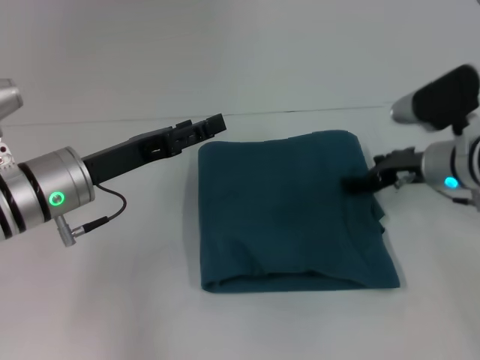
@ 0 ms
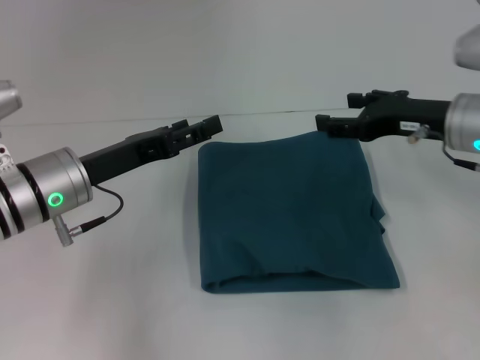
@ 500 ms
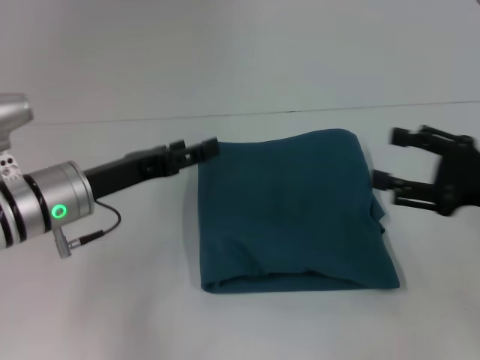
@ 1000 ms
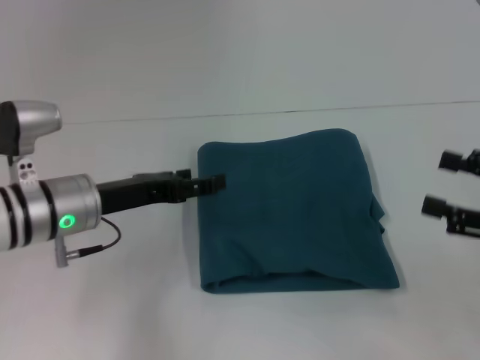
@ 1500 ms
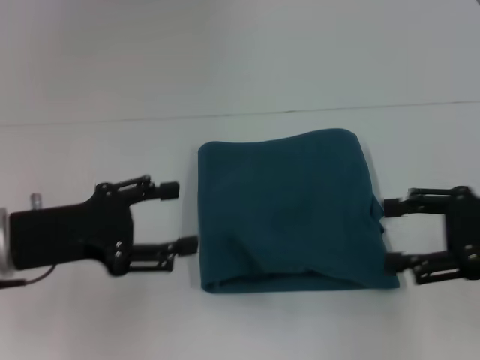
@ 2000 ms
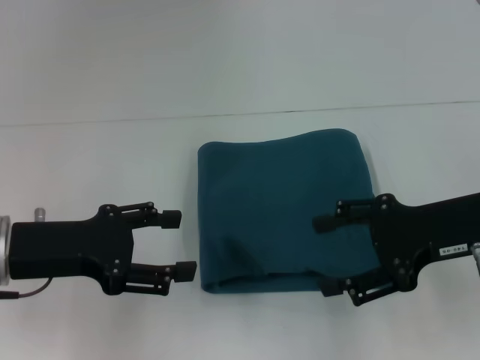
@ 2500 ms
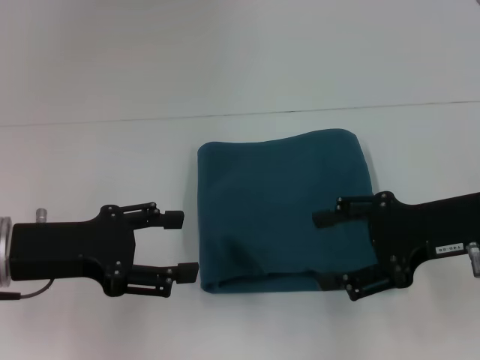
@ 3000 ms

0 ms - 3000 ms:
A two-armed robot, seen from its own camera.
0 ms - 1500 ms: The right gripper is displaced backward and to the right by about 20 cm.
1500 ms - 3000 ms: The left gripper moves backward and to the left, roughly 10 cm. Meanwhile the right gripper shifts roughly 10 cm to the left.

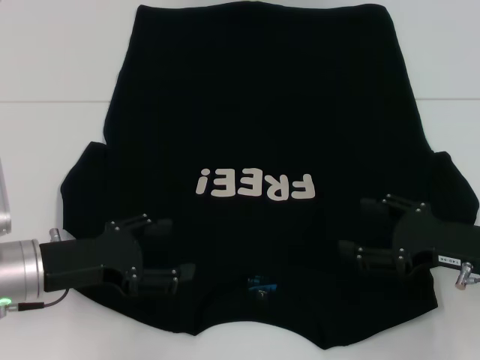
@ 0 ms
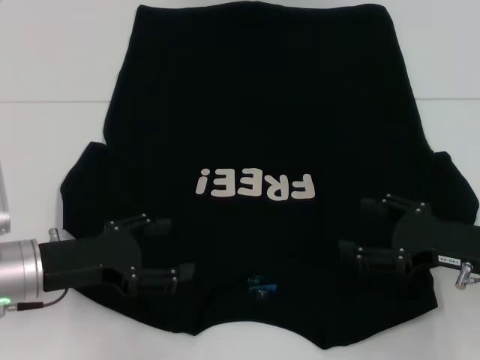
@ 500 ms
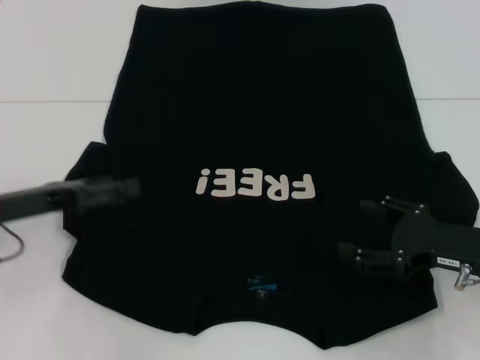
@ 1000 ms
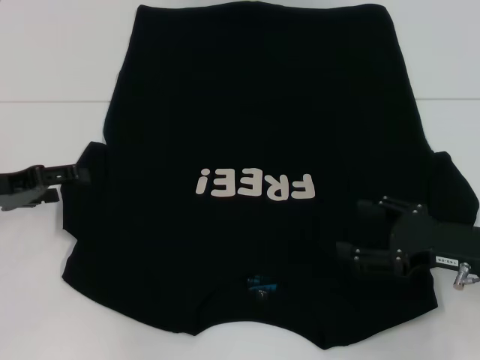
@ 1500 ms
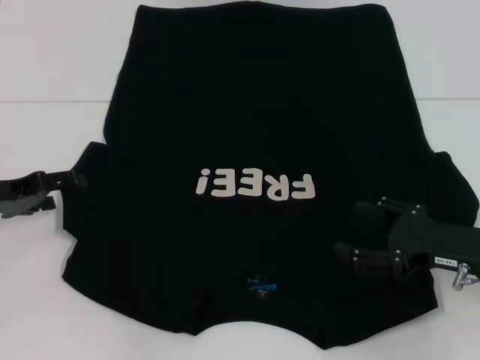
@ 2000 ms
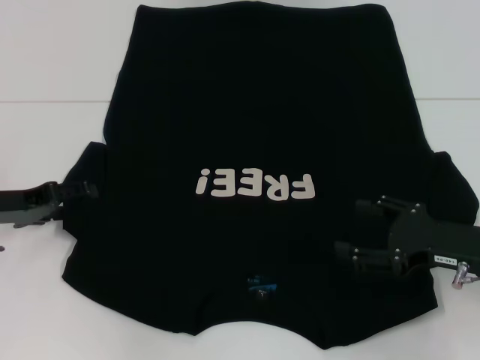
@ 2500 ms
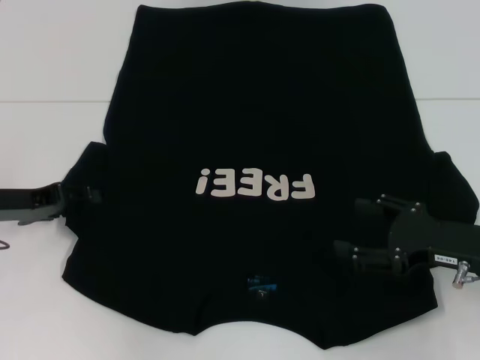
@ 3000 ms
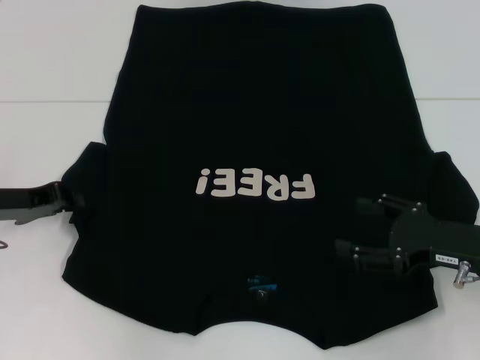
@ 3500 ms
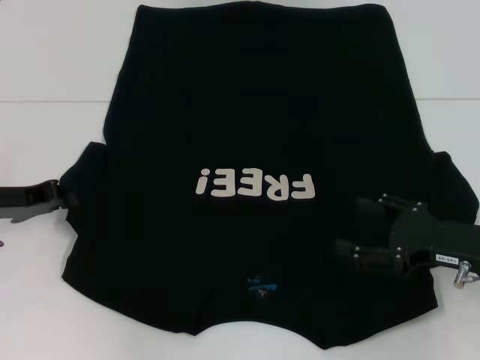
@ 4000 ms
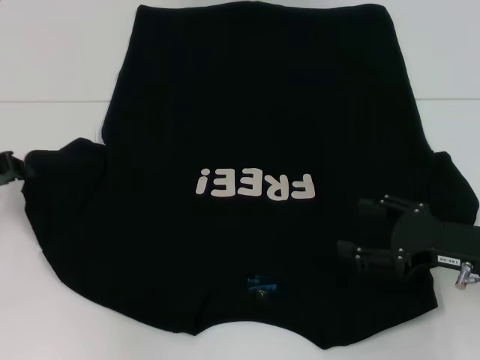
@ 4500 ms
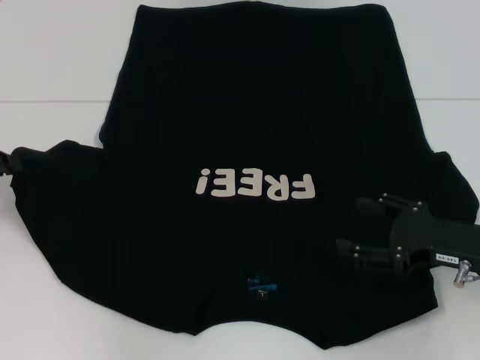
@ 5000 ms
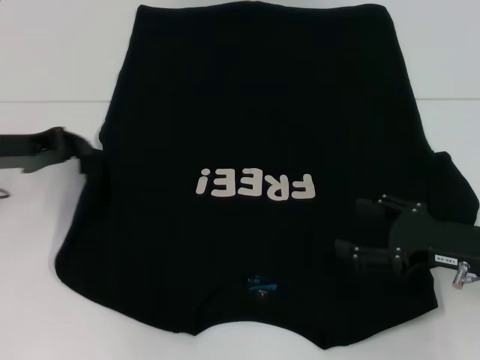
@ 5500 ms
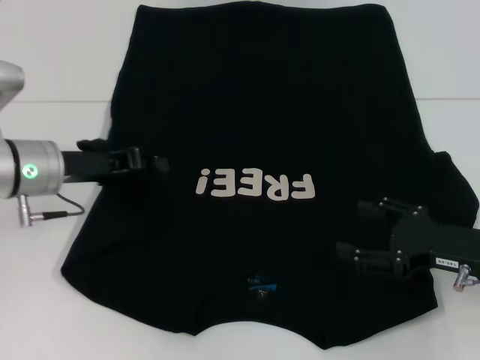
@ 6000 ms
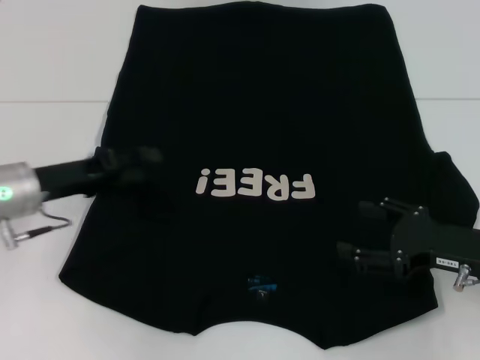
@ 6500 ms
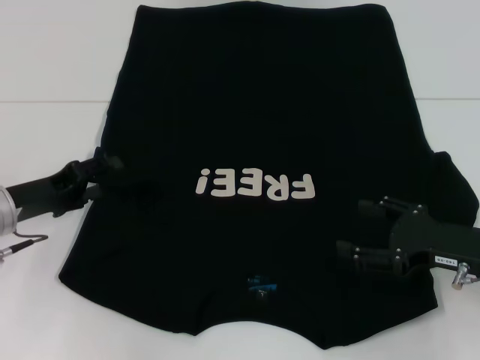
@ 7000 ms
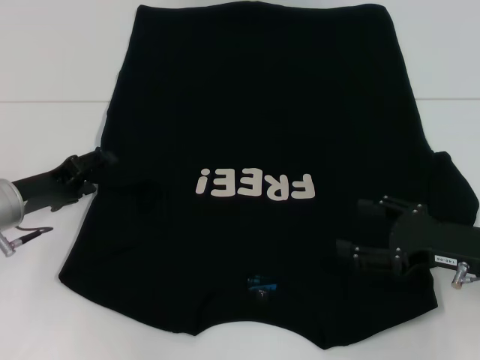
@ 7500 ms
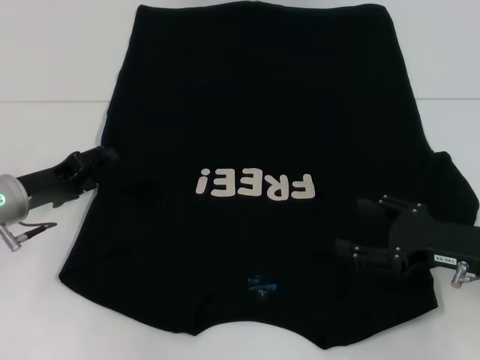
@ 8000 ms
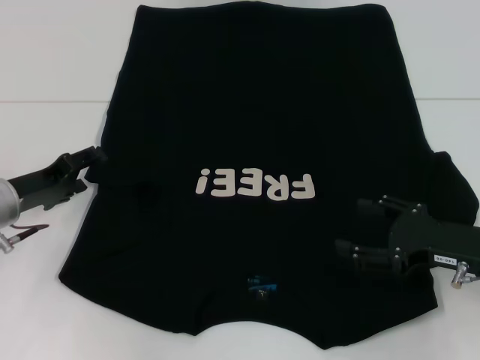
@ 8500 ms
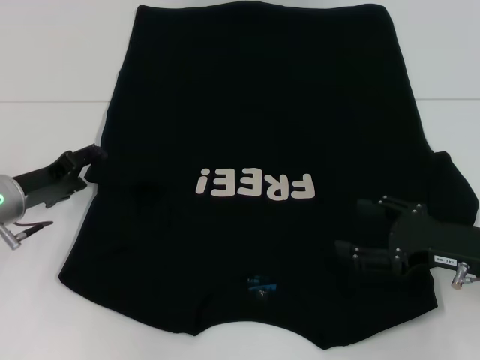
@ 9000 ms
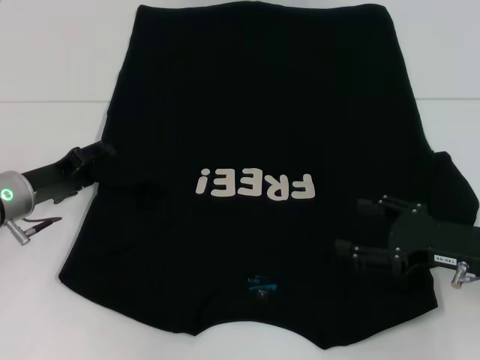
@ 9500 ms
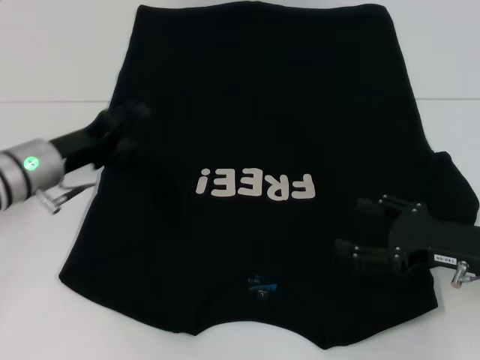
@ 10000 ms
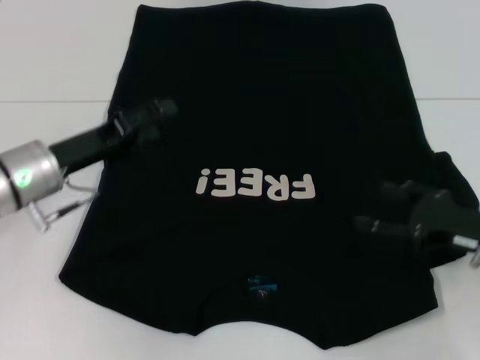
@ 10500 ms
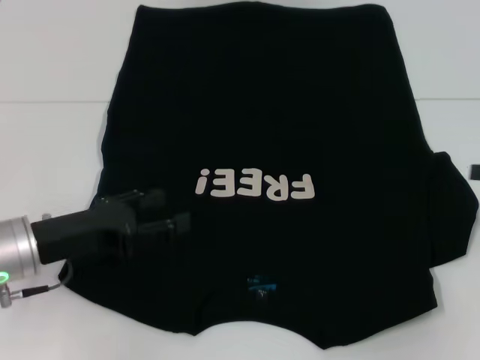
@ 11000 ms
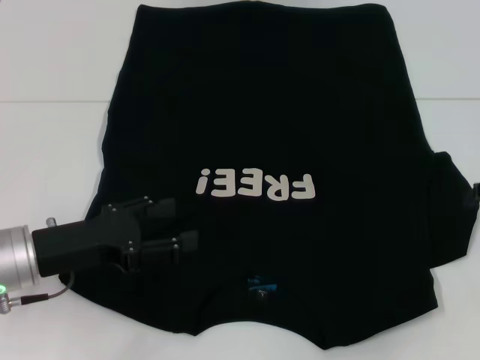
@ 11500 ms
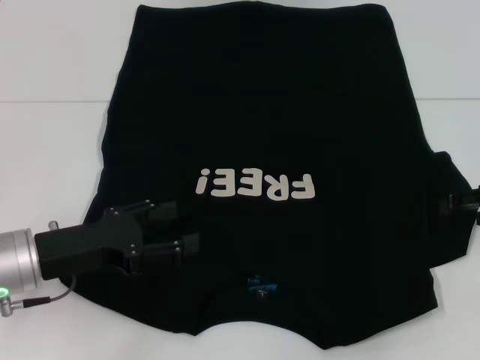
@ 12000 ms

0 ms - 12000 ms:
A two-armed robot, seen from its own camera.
Step, 0 ms - 6000 ms: Fold the bottom left sleeve with your left hand.
0 ms - 2000 ms: The left gripper heads to the left and forward, covering roughly 10 cm.
2000 ms - 4000 ms: The left gripper closes its fingers.
4000 ms - 6000 ms: The left gripper goes approximately 10 cm to the right.
6000 ms - 8000 ms: The left gripper goes some 5 cm downward, and opens up.
8000 ms - 10000 ms: The left gripper changes place by approximately 5 cm.
10000 ms - 12000 ms: The right gripper shifts approximately 10 cm to the right, forward and upward, while the left gripper is displaced backward by some 10 cm.

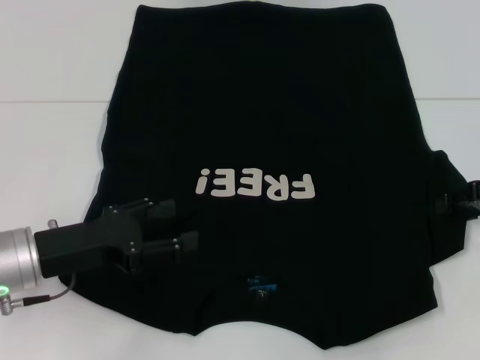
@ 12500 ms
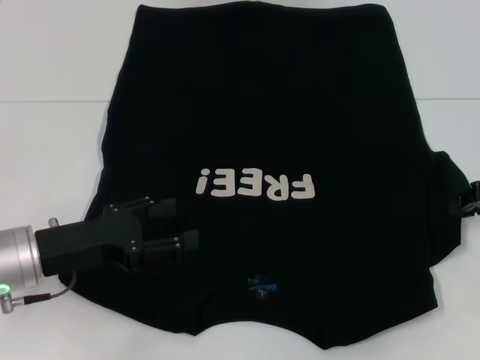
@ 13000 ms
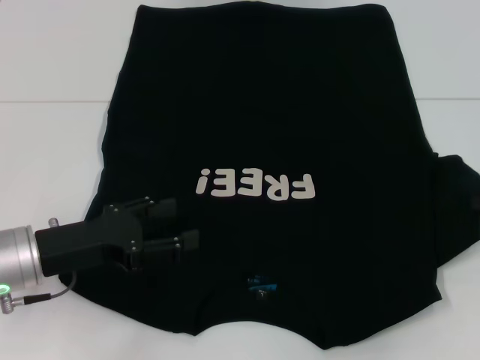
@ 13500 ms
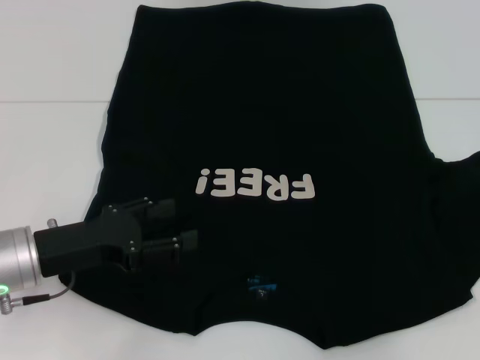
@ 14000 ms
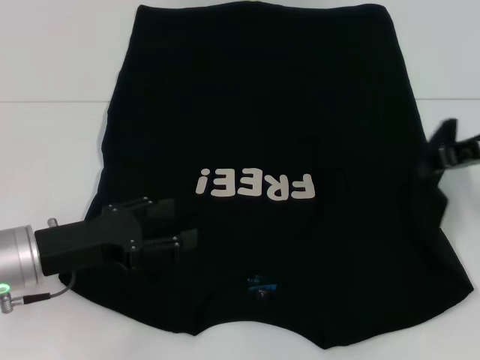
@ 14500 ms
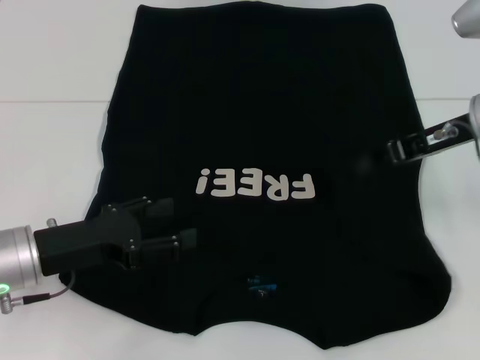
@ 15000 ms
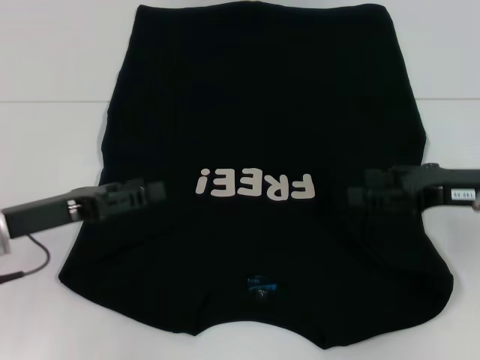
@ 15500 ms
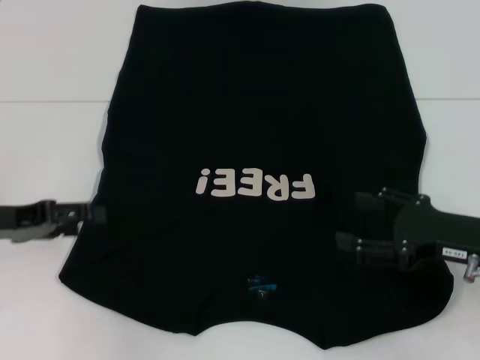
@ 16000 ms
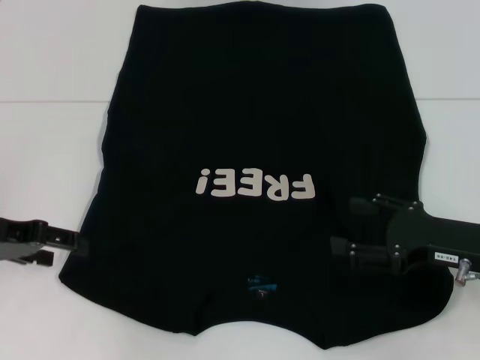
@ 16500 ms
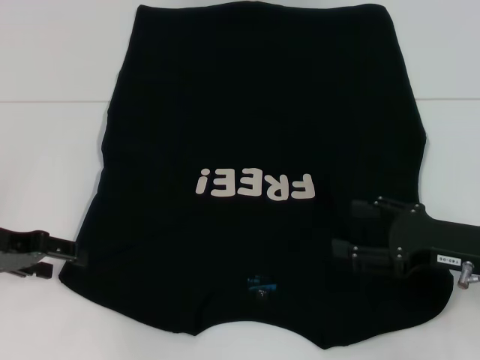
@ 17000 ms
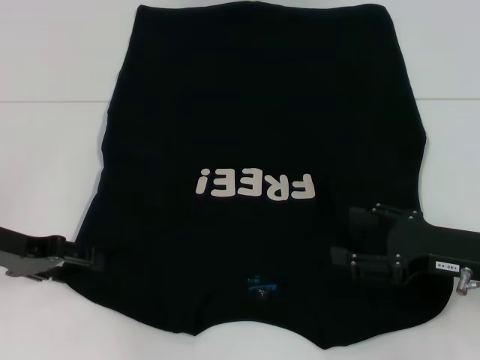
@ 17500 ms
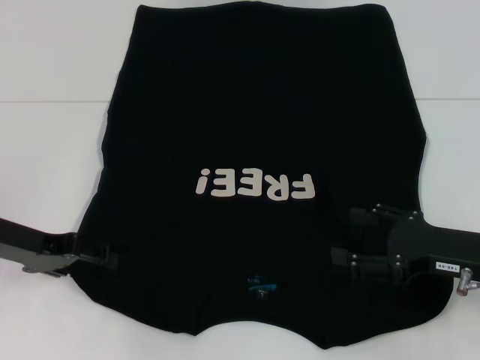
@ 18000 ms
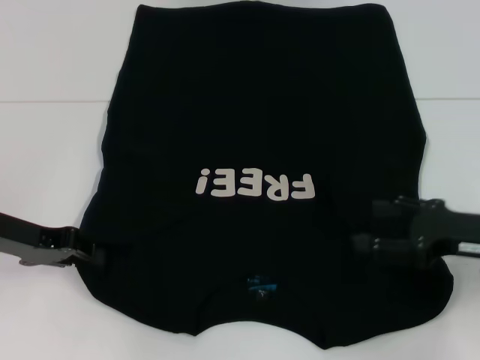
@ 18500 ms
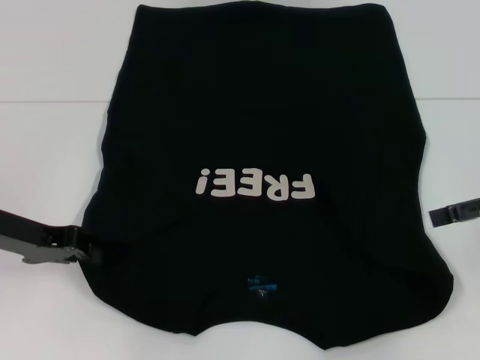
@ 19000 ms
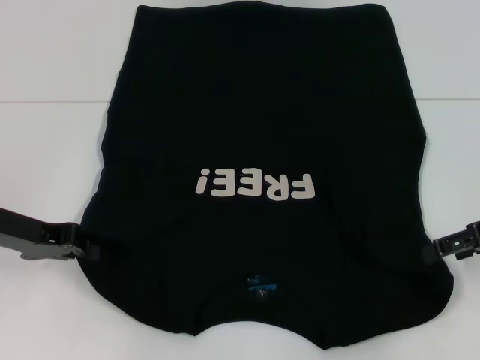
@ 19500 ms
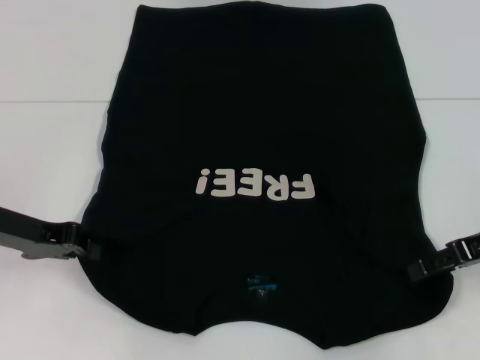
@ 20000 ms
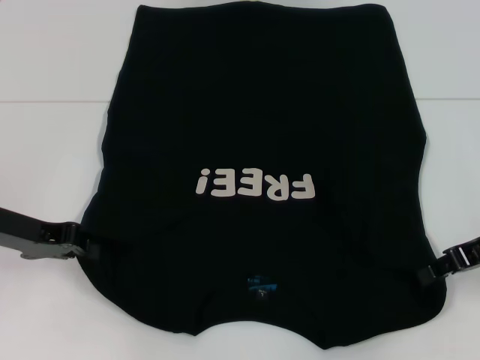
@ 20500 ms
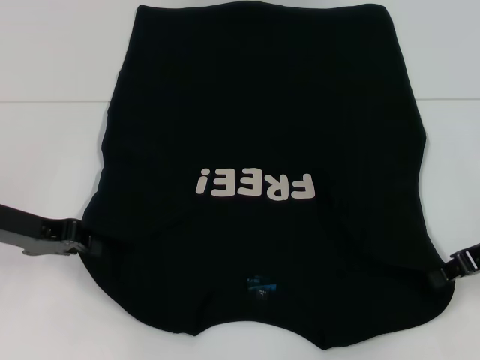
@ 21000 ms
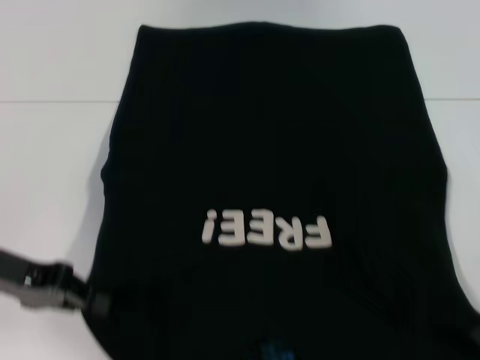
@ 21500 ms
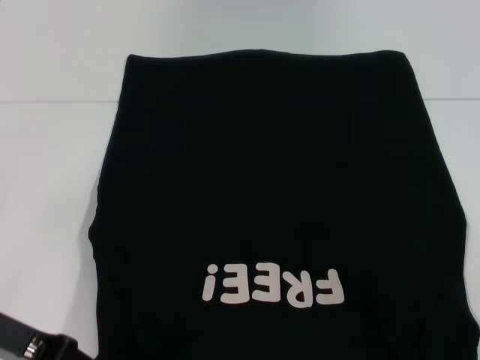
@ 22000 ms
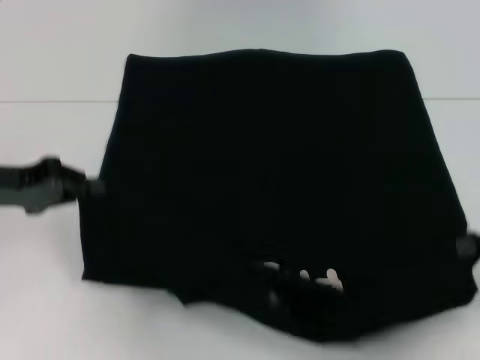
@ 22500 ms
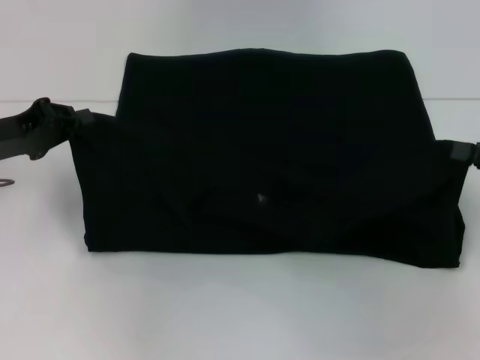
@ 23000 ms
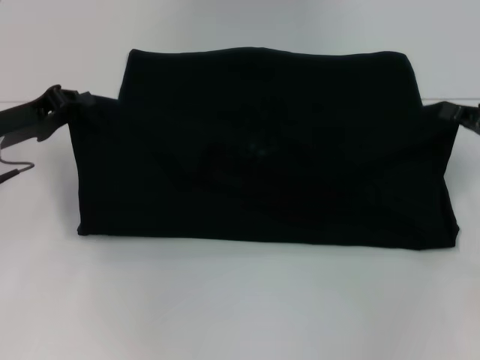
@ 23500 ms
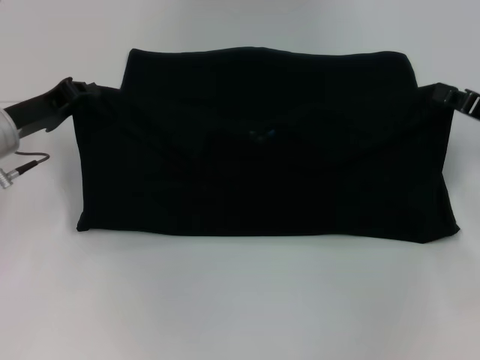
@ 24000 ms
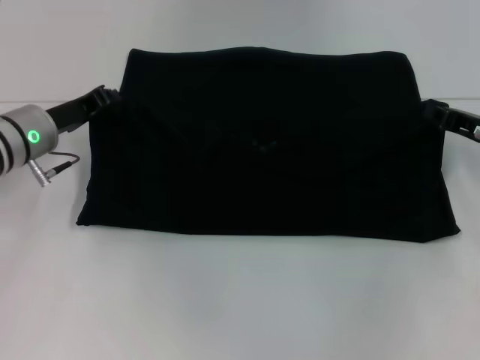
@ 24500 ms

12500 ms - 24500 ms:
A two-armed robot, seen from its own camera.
Step, 12500 ms - 15000 ms: Fold the bottom right sleeve with your right hand.
Step, 15500 ms - 19000 ms: Grab the bottom left corner with your left hand.
Step, 19500 ms - 21000 ms: Grab the bottom right corner with your right hand.
12500 ms - 14500 ms: The right gripper shifts some 5 cm upward, and closes up.
14500 ms - 16500 ms: The left gripper heads to the left and upward, covering about 10 cm. Meanwhile the right gripper travels downward and backward by approximately 15 cm, and opens up.
16500 ms - 18500 ms: The left gripper closes its fingers.
18500 ms - 20500 ms: The left gripper closes, while the right gripper closes.
20500 ms - 22500 ms: The right gripper is displaced to the right by some 5 cm, and closes. Meanwhile the left gripper goes backward and returns, approximately 10 cm each way.
22500 ms - 24500 ms: The left gripper moves forward and to the right, some 10 cm. The right gripper goes roughly 10 cm forward, downward and to the left.
